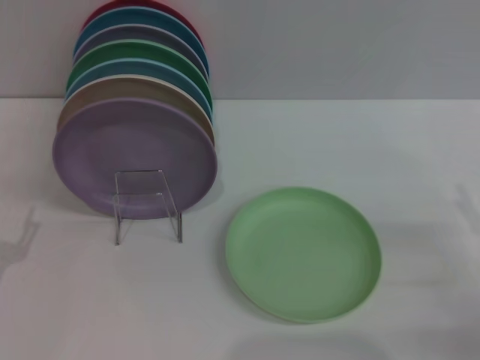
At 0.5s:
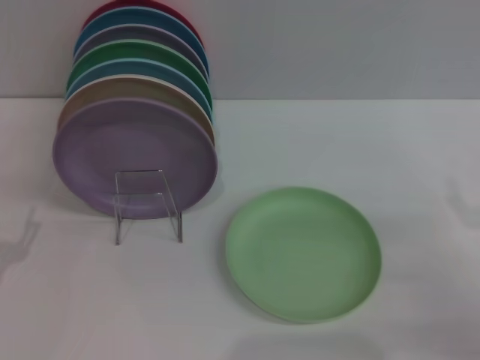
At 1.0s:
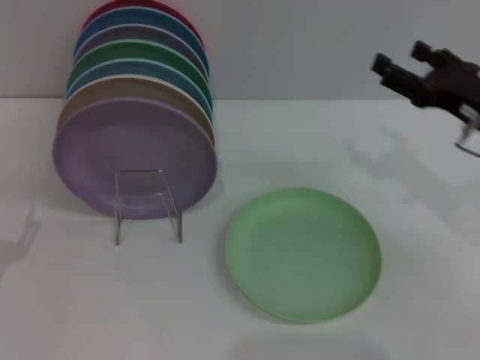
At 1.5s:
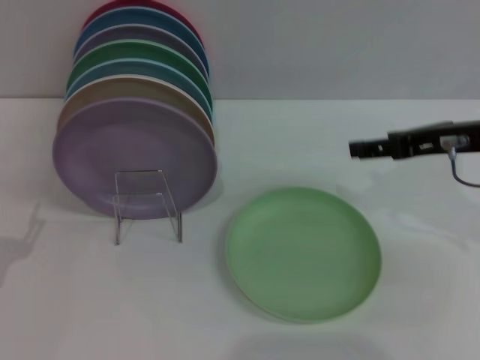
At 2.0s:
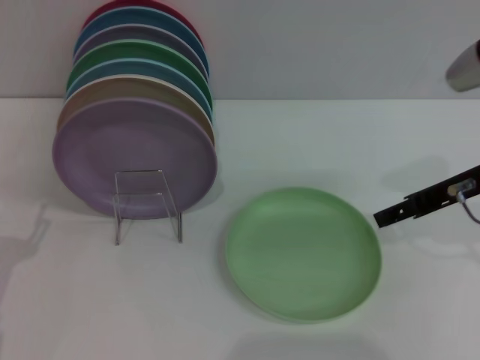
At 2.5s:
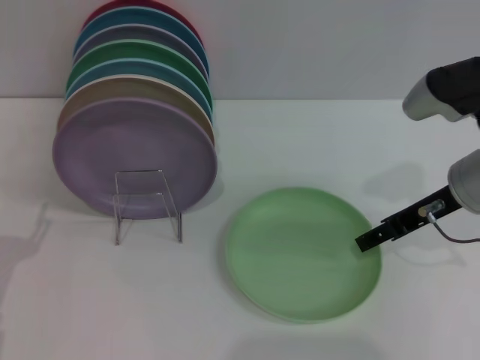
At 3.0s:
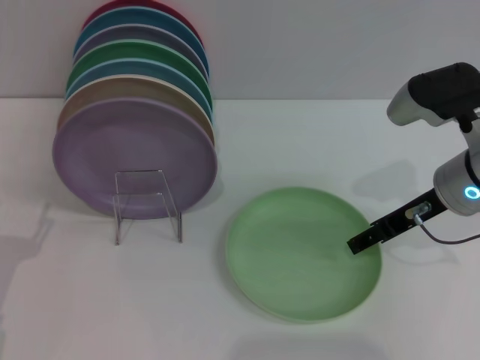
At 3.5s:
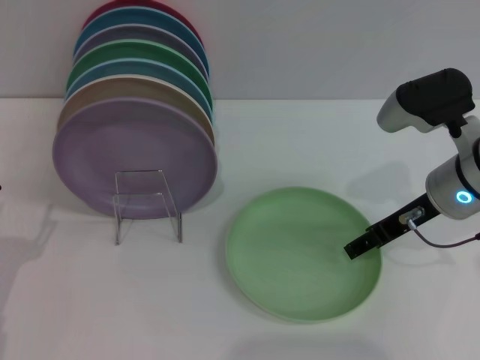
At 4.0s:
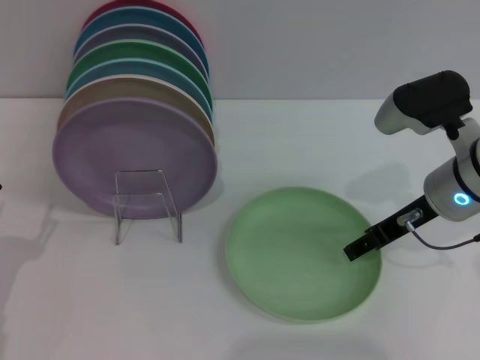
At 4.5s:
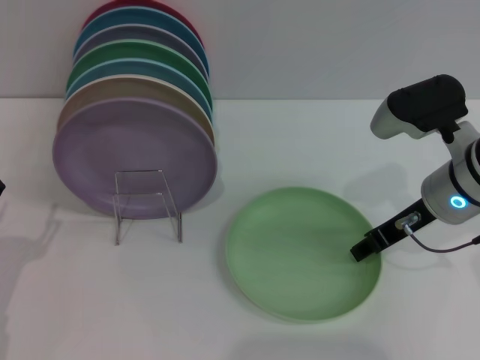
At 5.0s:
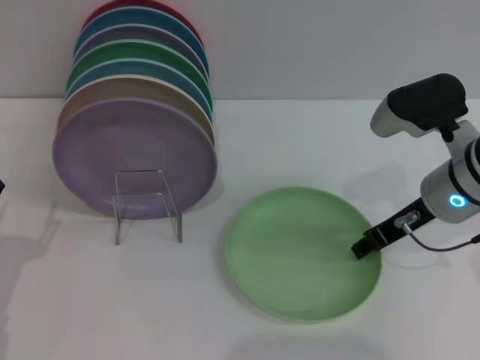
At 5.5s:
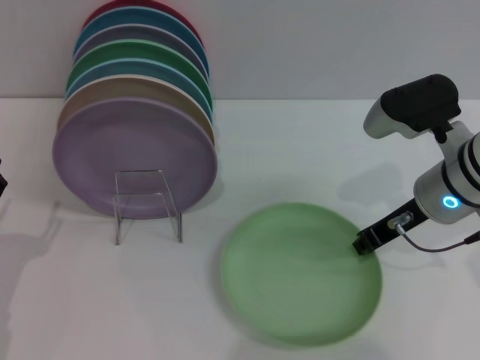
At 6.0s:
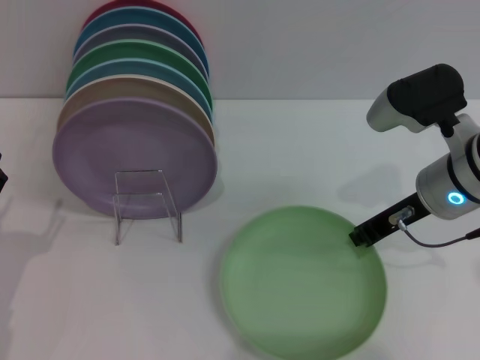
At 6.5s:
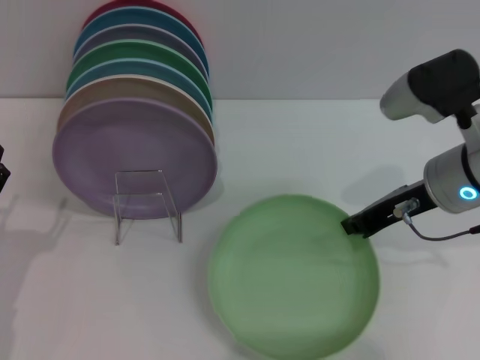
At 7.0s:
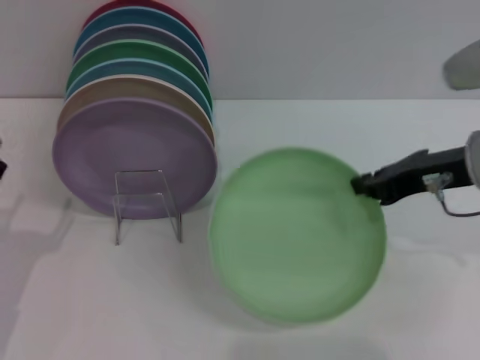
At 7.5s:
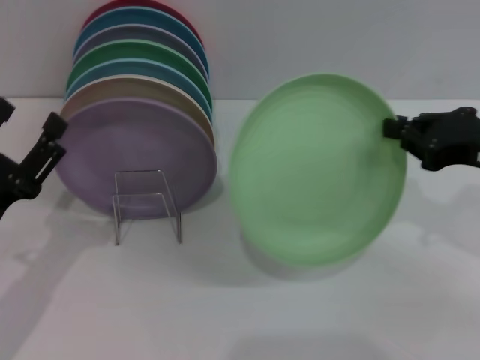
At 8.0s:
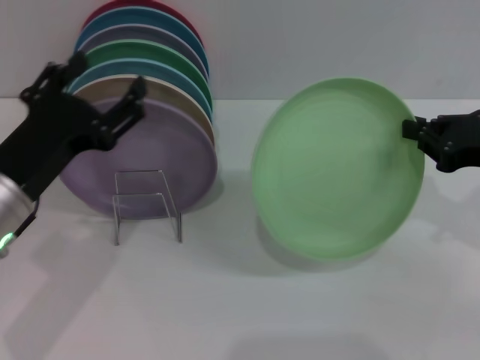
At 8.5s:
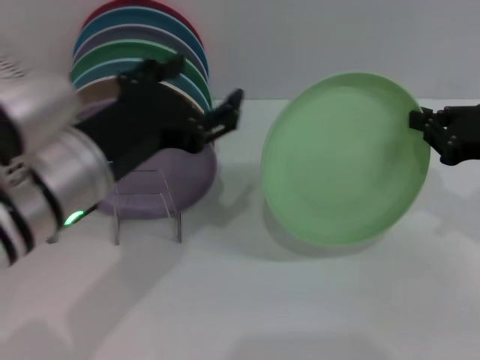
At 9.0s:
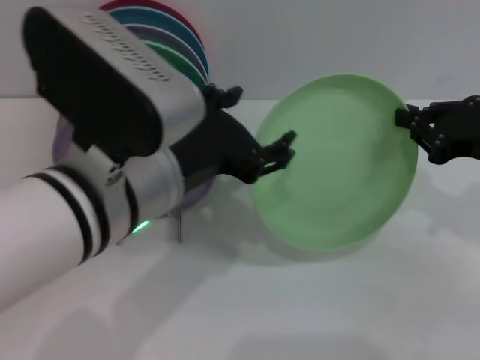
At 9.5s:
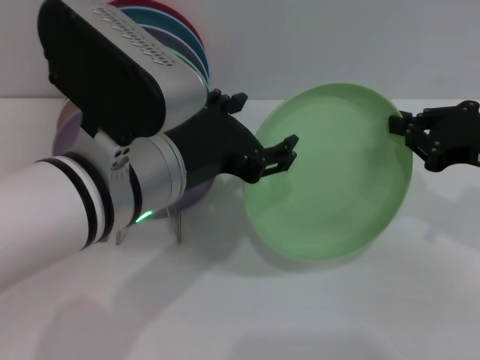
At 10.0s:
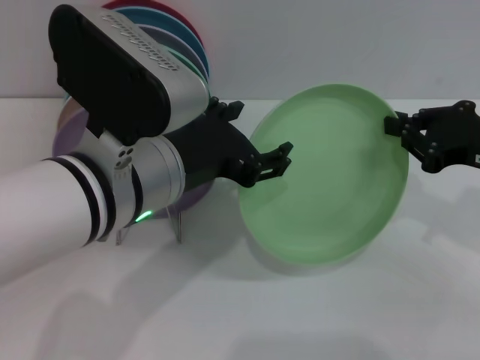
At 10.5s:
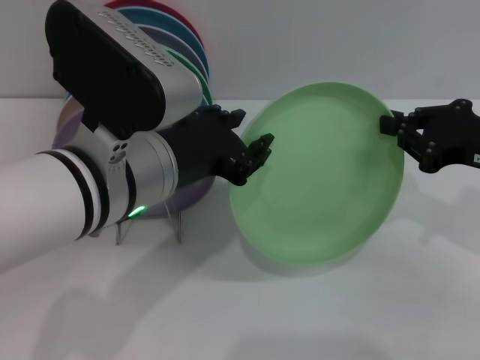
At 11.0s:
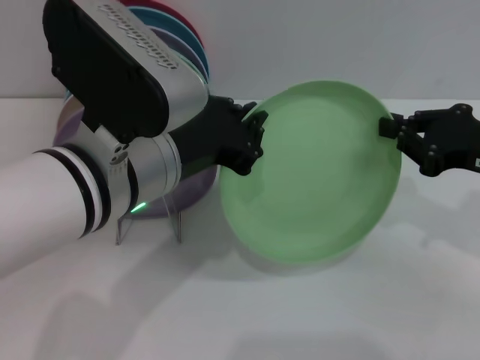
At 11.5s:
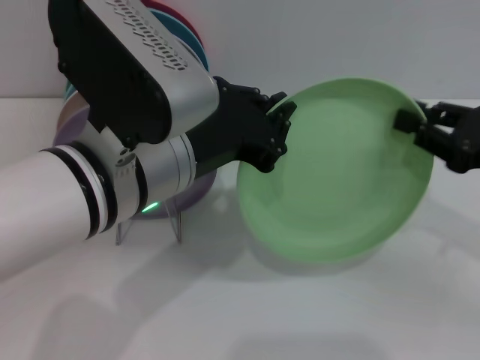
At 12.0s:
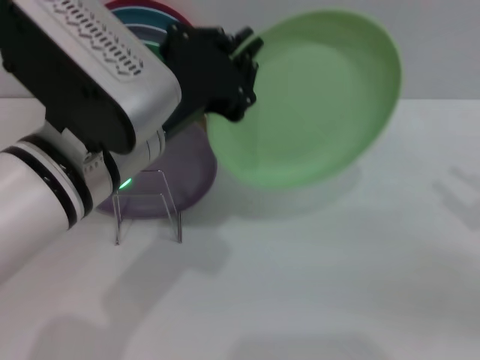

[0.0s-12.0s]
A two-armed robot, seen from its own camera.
Task of the whole recording: Grip the plate with one hand, pass it to the other, then set it on the shelf.
Step, 0.0s to 6.5s: Pick up the plate with the right gripper.
Step, 7.0s to 11.5s: Pass the plate from the right gripper to the left gripper.
0.0s to 2.0s: The right gripper travels upward, forward and to the left by roughly 20 cm.
2.0s to 4.0s: The right gripper ends up about 5 cm from where it was.
4.0s to 6.0s: The right gripper closes.
6.0s to 8.0s: The right gripper heads to the right, covering approximately 10 cm; the left gripper travels upward and to the right by about 15 cm.
8.0s to 10.0s: The left gripper goes about 15 cm to the right and upward.
10.0s to 12.0s: The left gripper closes up. The right gripper goes about 10 cm to the right and backward, and opens up.

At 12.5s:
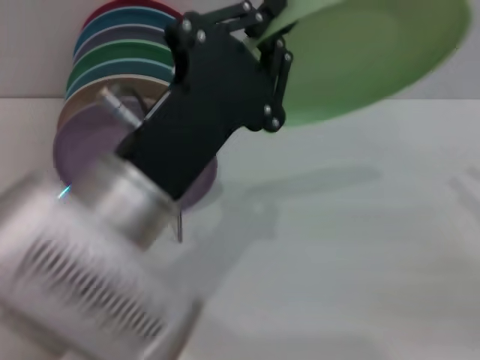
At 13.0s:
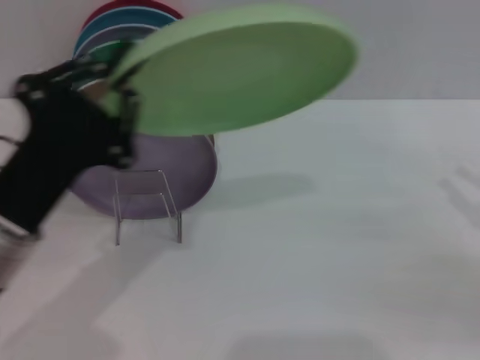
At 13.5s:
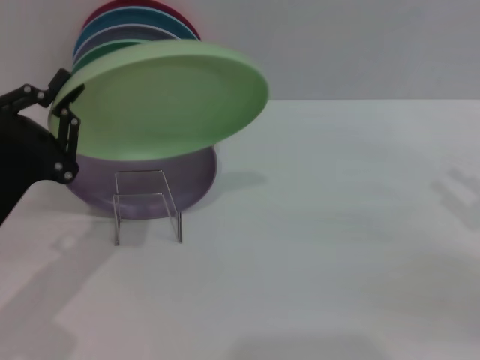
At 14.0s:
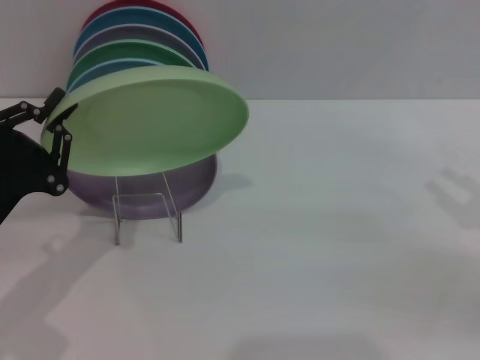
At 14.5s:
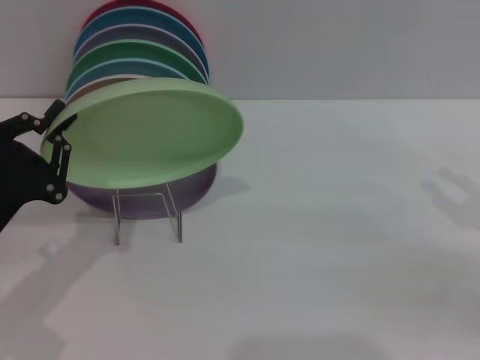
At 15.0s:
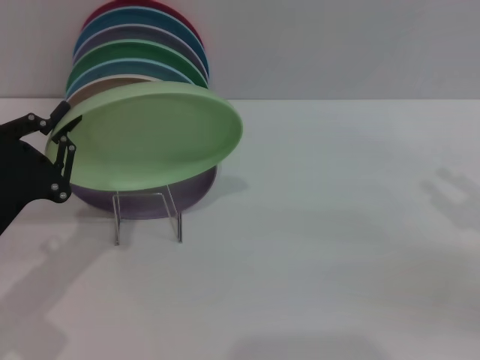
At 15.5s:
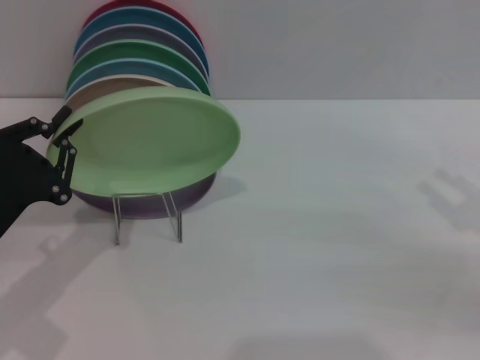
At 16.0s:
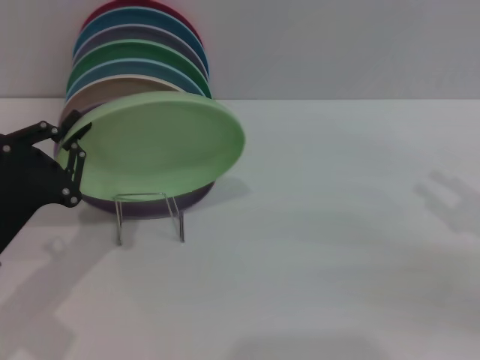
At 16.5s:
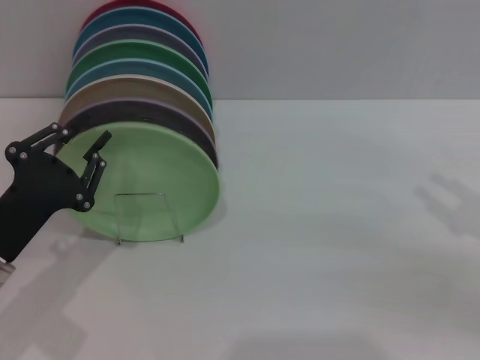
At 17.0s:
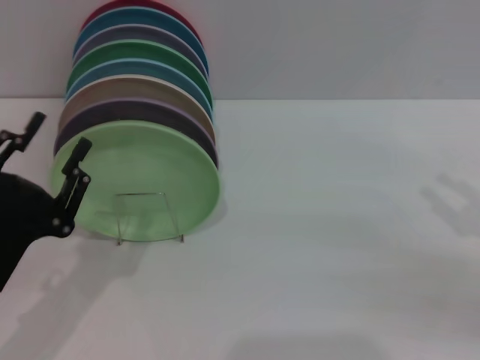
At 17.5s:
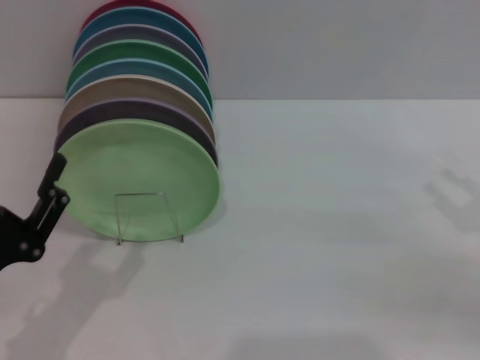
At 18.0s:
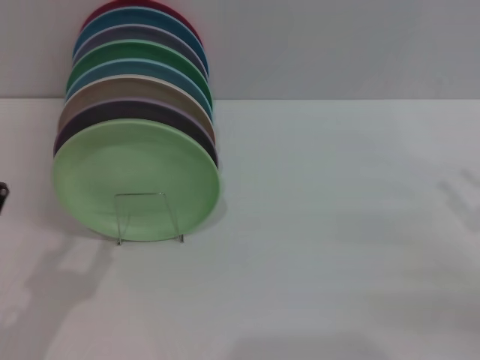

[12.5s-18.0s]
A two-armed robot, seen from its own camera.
Task of the whole recording: Grip the plate with one hand, pass it to the other, then set it on the shelf.
Step, 12.5s to 17.0s: Place the plate on the shelf with the left gripper.
12.5s to 14.5s: The left gripper heads to the left and downward, covering about 20 cm.
14.5s to 16.0s: Both grippers stay put.
16.0s to 18.0s: The left gripper is displaced backward by some 10 cm, and opens up.

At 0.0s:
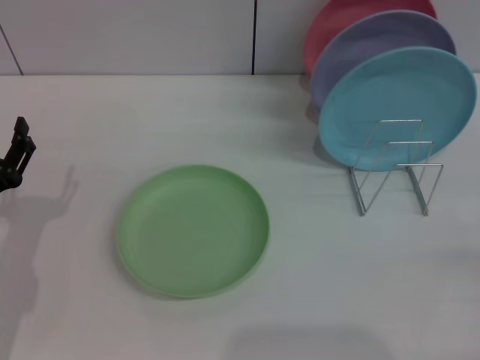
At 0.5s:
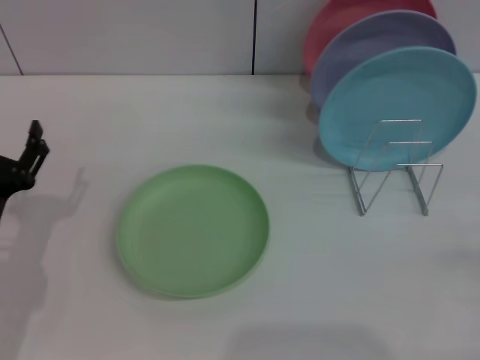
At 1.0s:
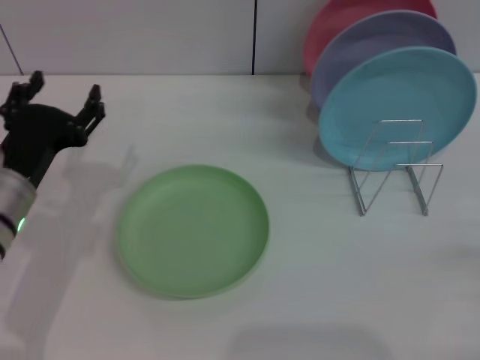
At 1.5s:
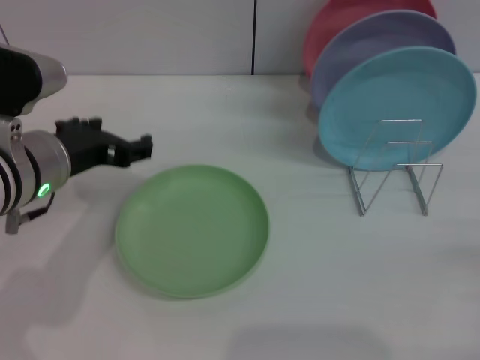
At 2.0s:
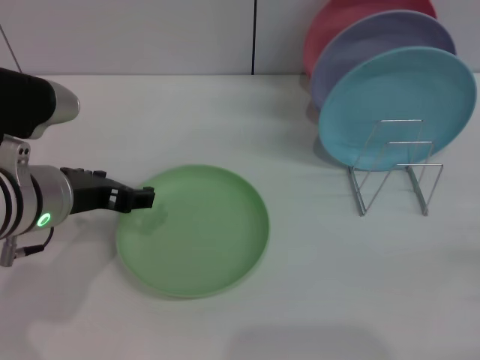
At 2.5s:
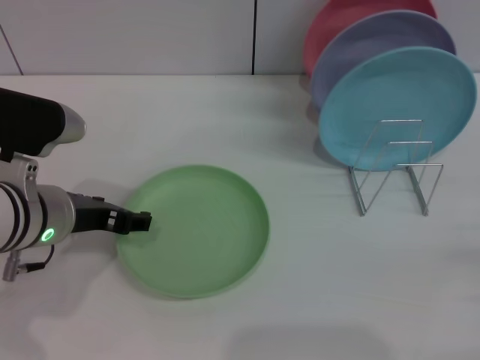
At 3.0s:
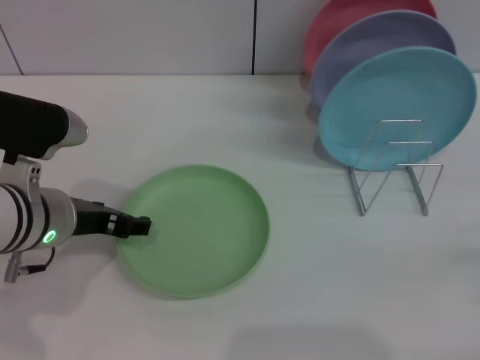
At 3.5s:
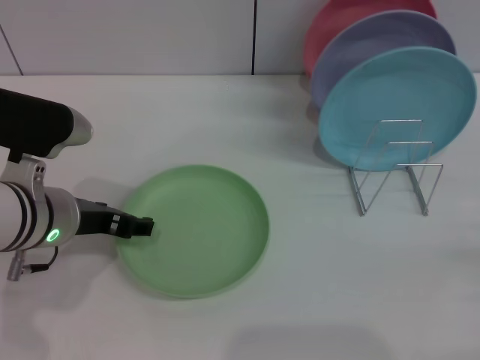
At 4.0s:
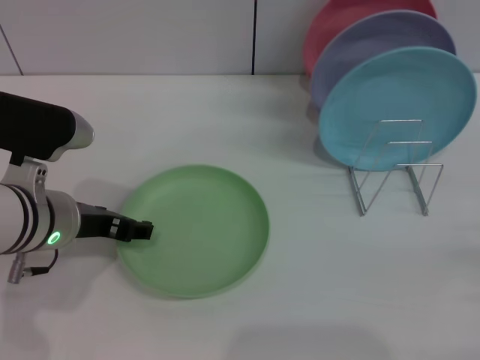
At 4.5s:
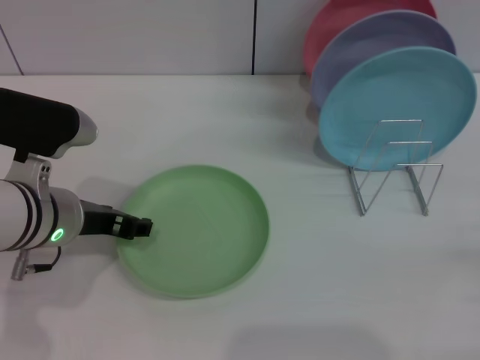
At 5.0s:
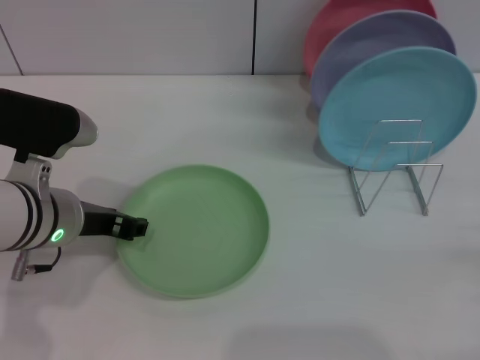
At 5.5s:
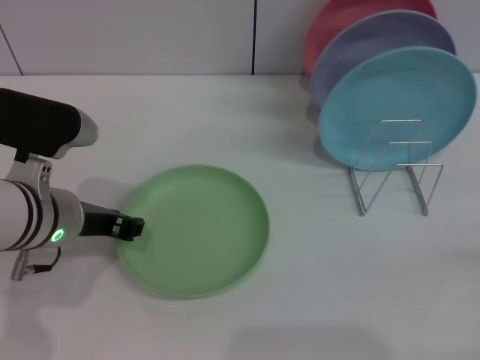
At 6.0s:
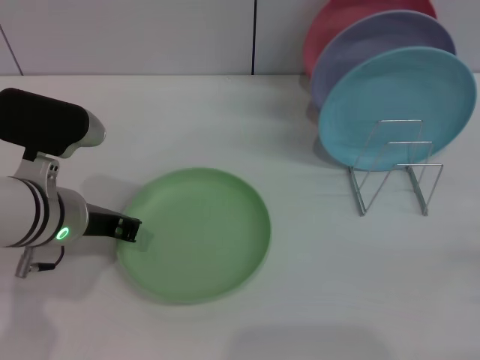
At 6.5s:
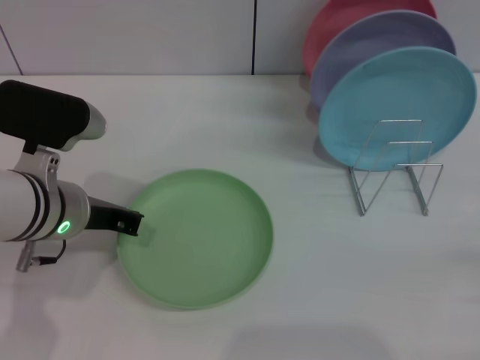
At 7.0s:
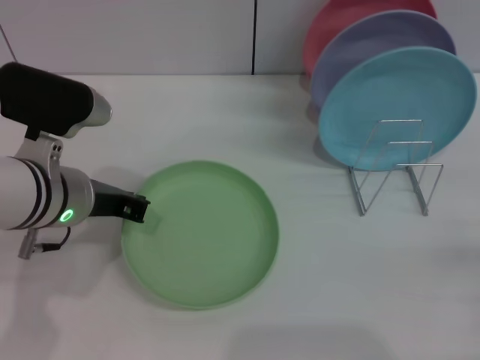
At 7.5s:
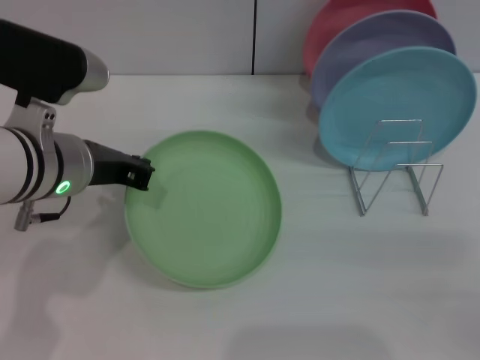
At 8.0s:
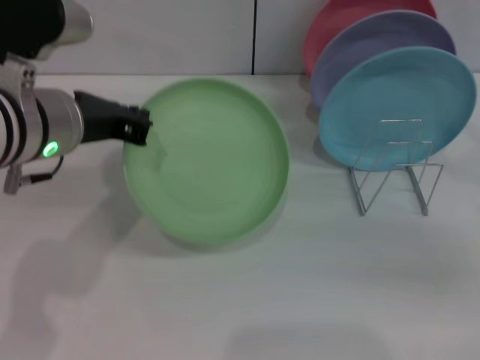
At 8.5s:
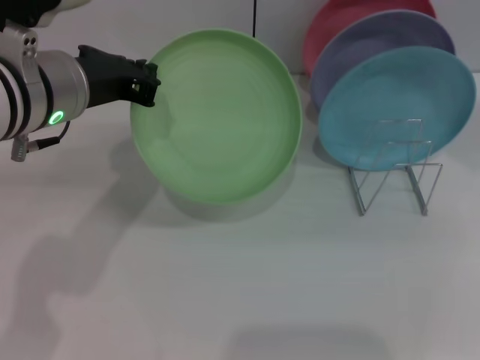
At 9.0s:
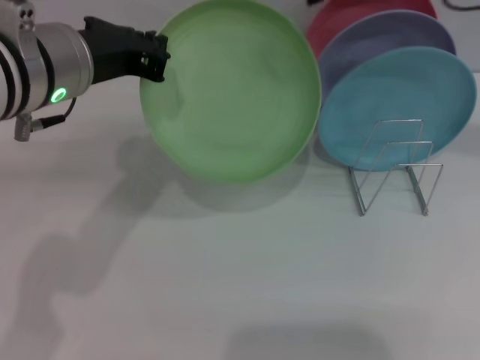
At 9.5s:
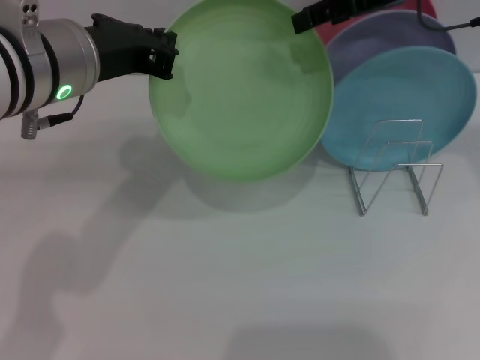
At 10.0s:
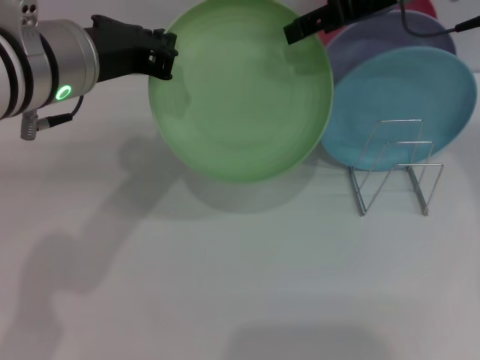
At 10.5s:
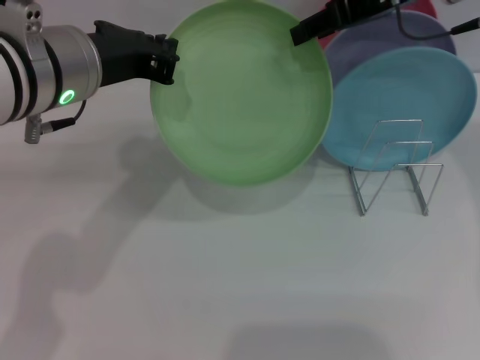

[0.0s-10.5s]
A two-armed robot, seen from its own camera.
Task of the whole recording: Grip the plate with one hand, pass it to the other, then set it on the shelf.
Step, 0.0s to 8.0s: Pick up the plate with the left gripper.
0.0s to 2.0s: The left gripper shifts approximately 15 cm upward and to the right.
2.0s to 4.0s: The grippers stay close to where they were, moving slightly.
4.0s to 6.5s: The left gripper closes up.
6.5s to 8.5s: The right gripper travels upward and forward by some 35 cm. Meanwhile the left gripper moves upward, some 10 cm.
8.5s to 10.5s: The right gripper is displaced to the left by roughly 10 cm.
